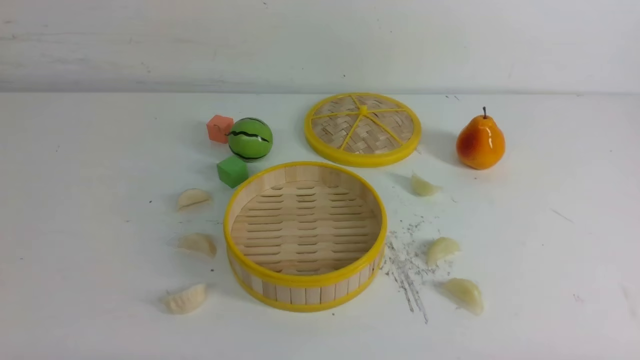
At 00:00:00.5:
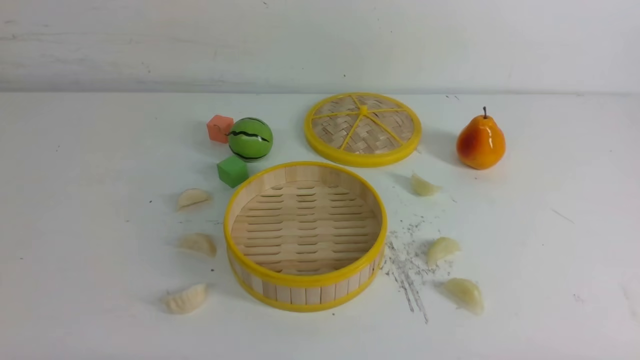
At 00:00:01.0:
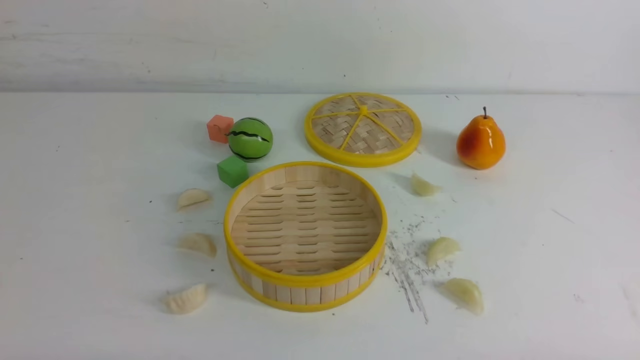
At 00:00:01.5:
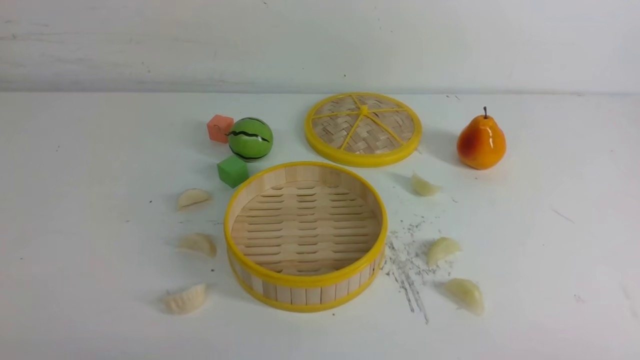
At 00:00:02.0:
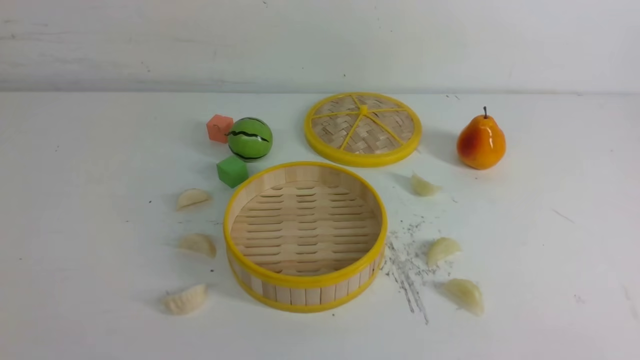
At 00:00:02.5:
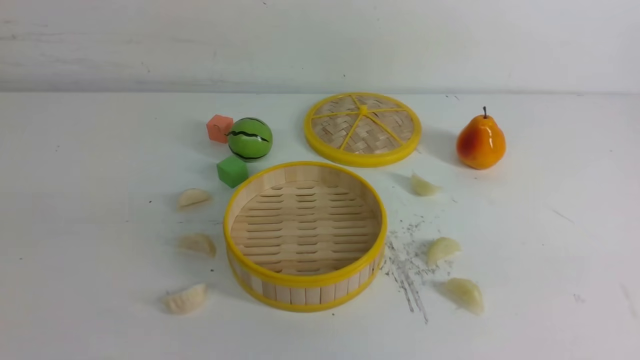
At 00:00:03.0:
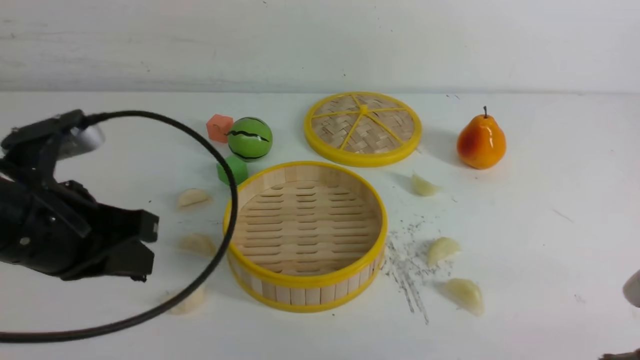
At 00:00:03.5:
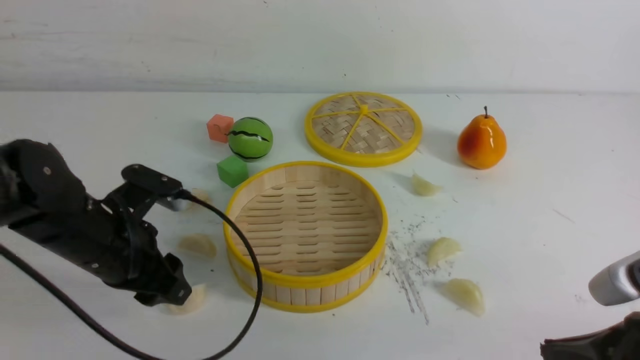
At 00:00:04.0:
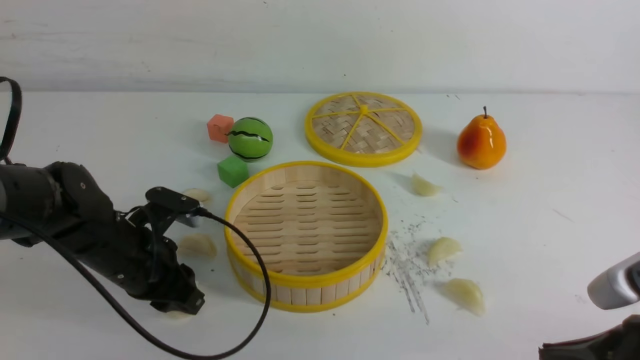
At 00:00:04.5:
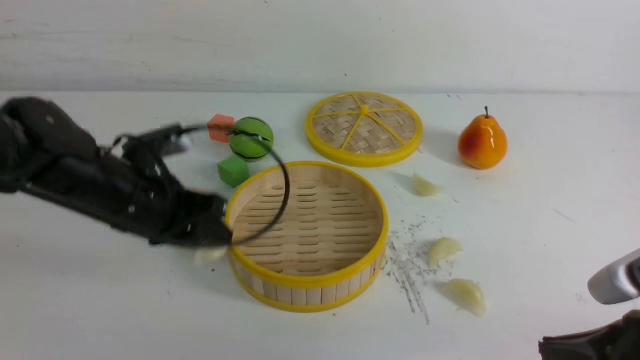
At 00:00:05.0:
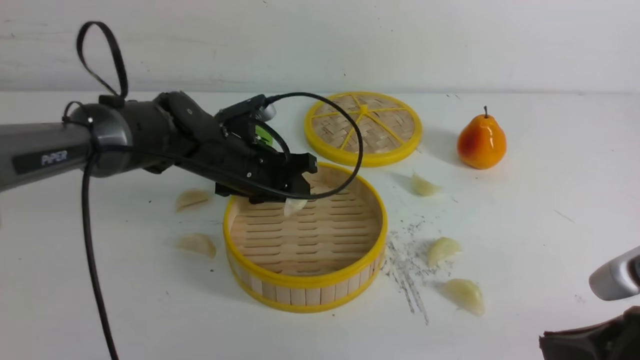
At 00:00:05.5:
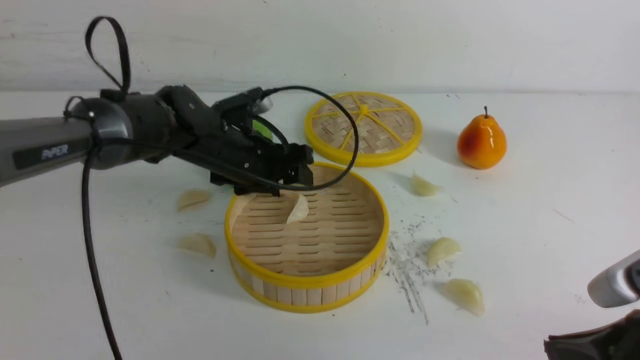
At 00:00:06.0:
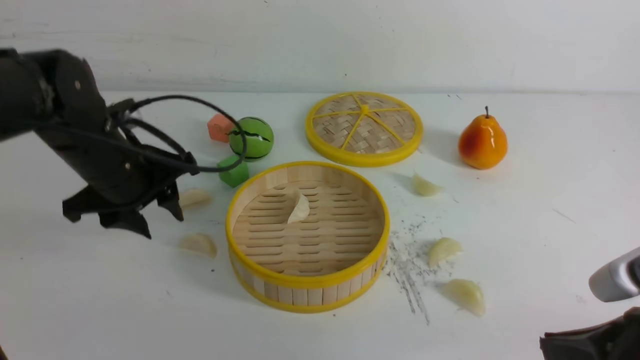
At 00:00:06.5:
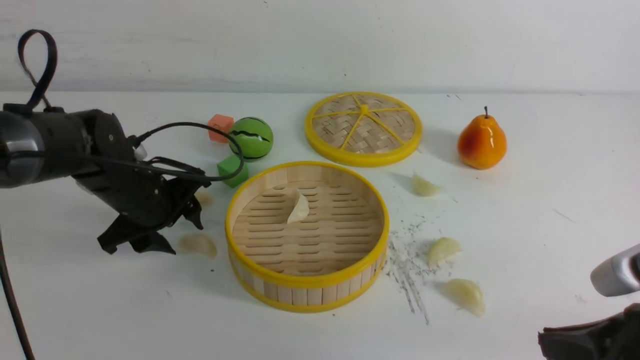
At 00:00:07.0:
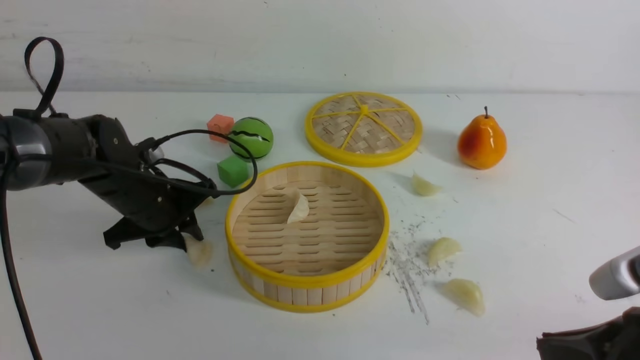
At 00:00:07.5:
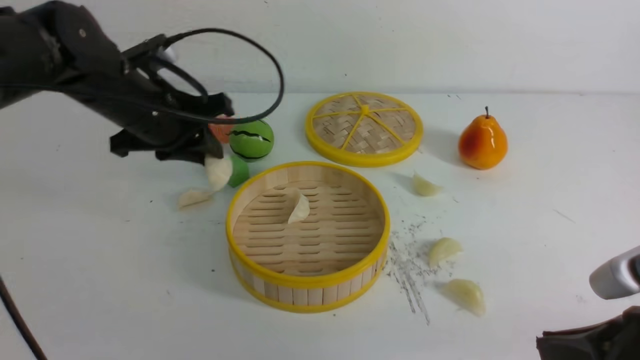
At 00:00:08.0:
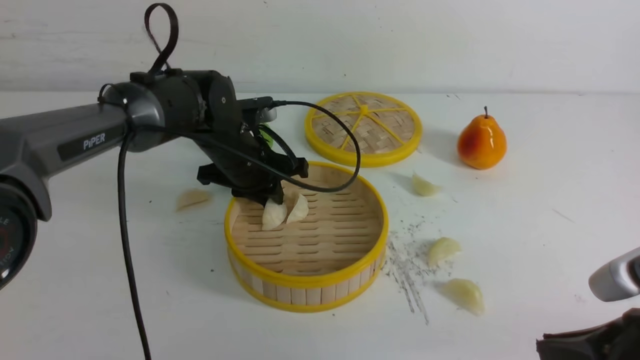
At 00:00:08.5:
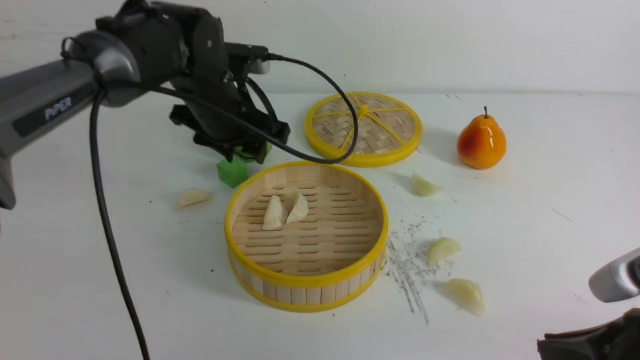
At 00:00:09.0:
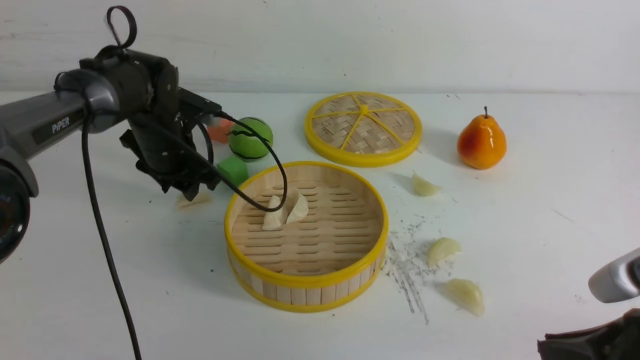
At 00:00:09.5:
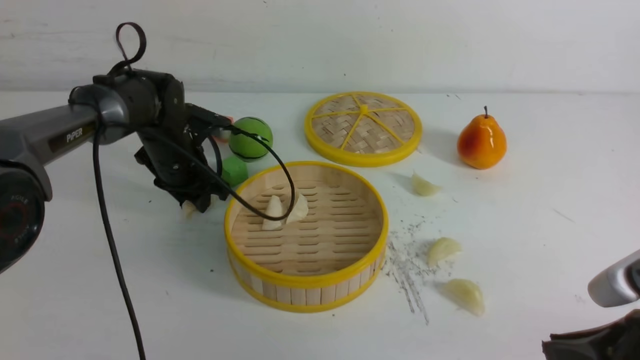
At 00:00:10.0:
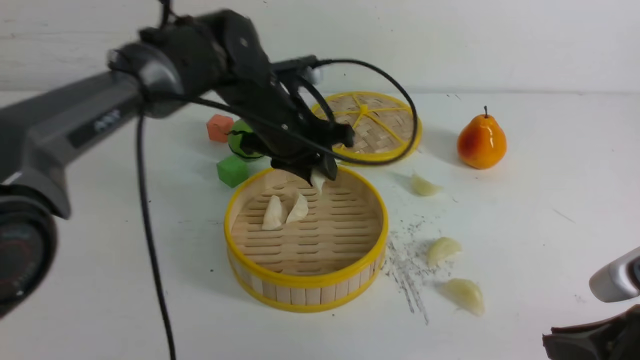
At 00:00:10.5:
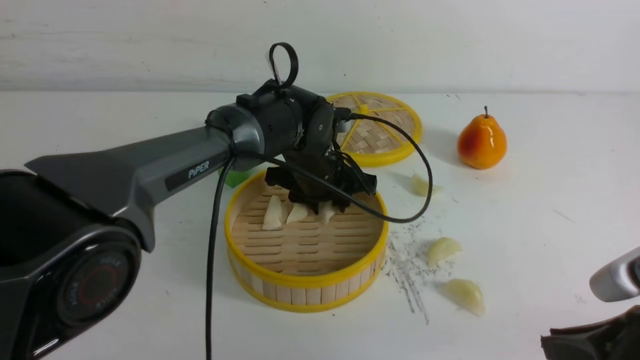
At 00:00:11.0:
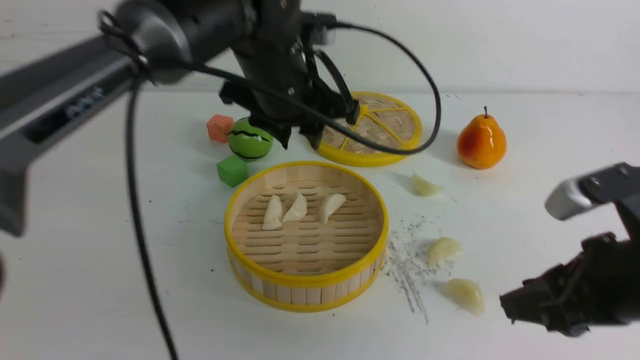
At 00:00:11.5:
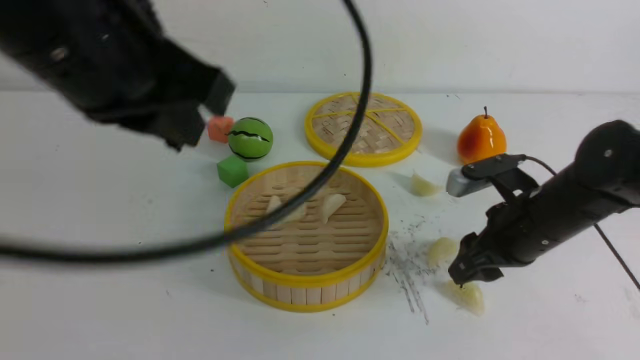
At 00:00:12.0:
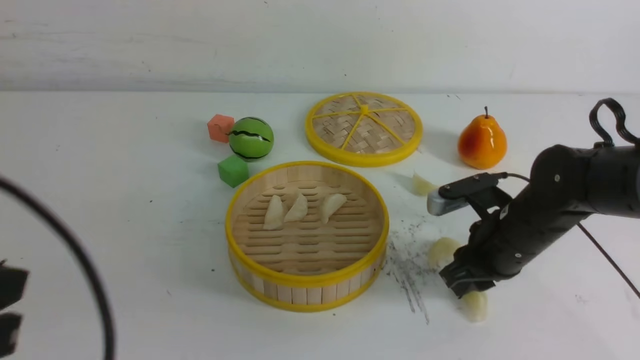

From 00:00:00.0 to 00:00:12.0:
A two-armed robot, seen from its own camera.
Task of the whole recording: put the dumplings into the steamer on the white table.
Step, from 00:00:00.0 to 00:00:04.0: use the left arm to grab a dumpling.
Step, from 00:00:04.5 to 00:00:05.5: use the left arm to put the dumpling into the steamer.
Step, from 00:00:06.0 to 00:00:07.0: use the left arm to grab a dumpling.
Step, from 00:00:07.5 to 00:00:08.0: use the left arm to put the dumpling into the steamer.
Step, from 00:00:08.5 to 00:00:09.5: use the left arm to grab a dumpling.
Step, from 00:00:10.0 to 00:00:10.5: use the left arm to put the dumpling into the steamer.
From 00:00:02.0 to 00:00:04.0: The left gripper heads forward and downward, covering about 30 cm, and closes, then opens again. The right gripper is displaced forward and to the left by some 10 cm, and closes up.
From 00:00:04.0 to 00:00:06.0: The left gripper goes some 10 cm upward and forward, reaches roughly 10 cm to the right, then returns, and opens up.
From 00:00:06.0 to 00:00:08.0: The left gripper goes some 10 cm to the right and forward, and closes its fingers.
From 00:00:08.0 to 00:00:10.0: The left gripper travels to the left and back again, some 10 cm each way.
From 00:00:10.0 to 00:00:12.0: The right gripper heads forward, covering some 20 cm, and opens and closes again; the left gripper goes roughly 40 cm backward and to the left, and closes up.

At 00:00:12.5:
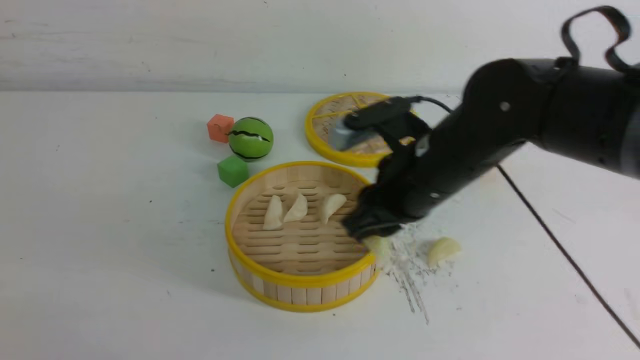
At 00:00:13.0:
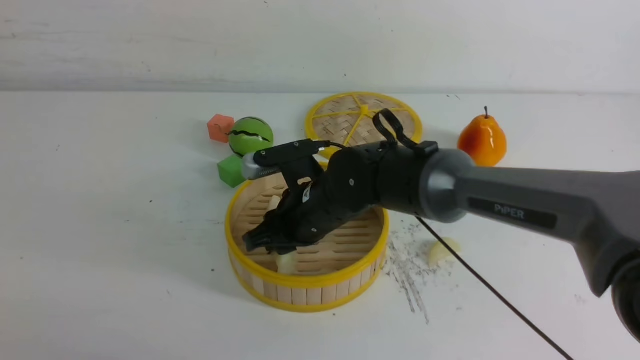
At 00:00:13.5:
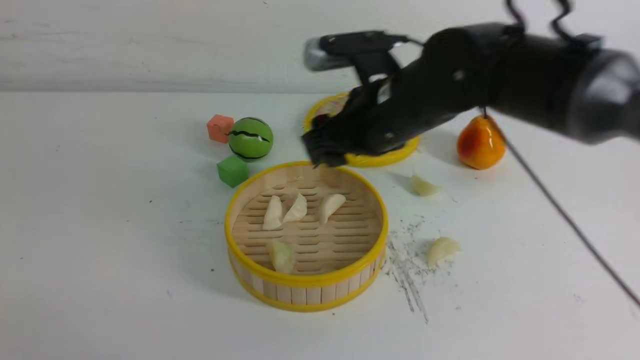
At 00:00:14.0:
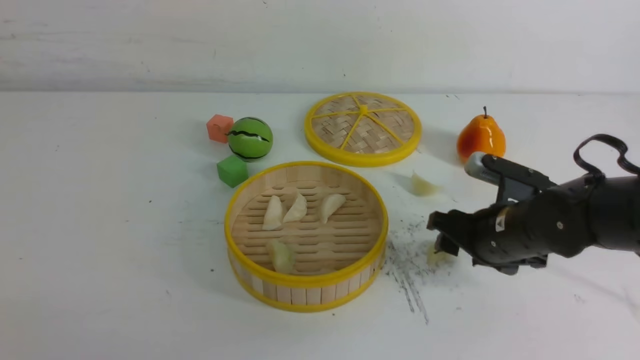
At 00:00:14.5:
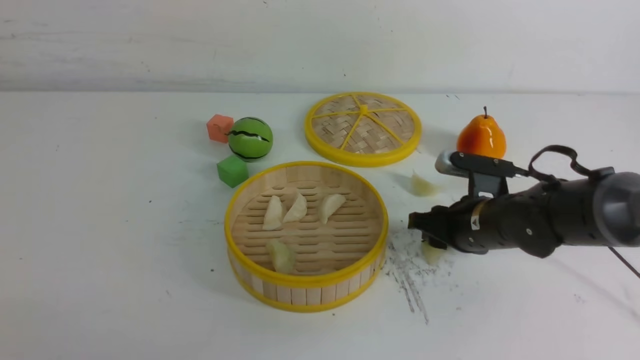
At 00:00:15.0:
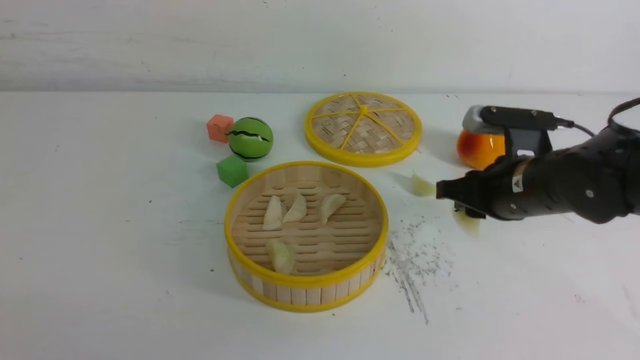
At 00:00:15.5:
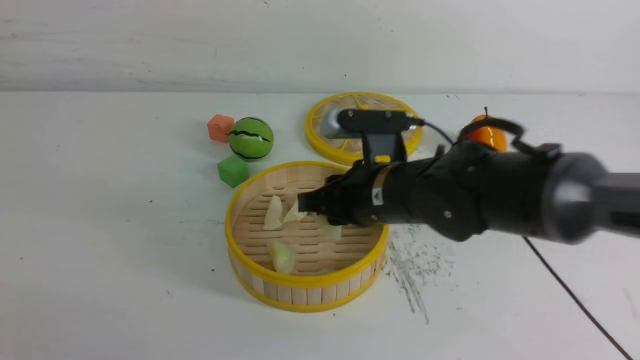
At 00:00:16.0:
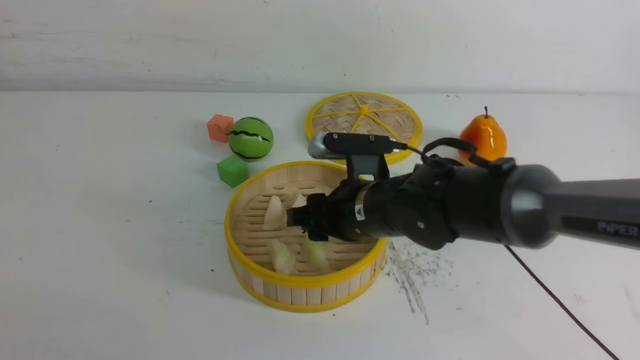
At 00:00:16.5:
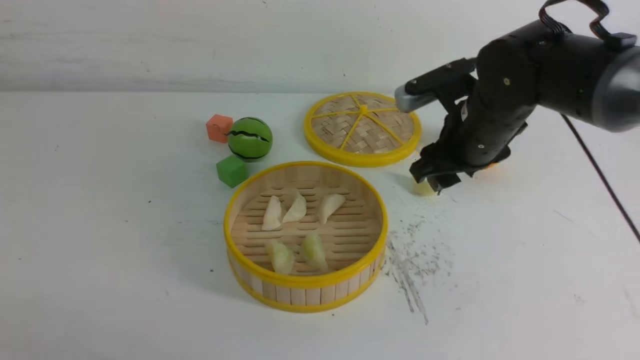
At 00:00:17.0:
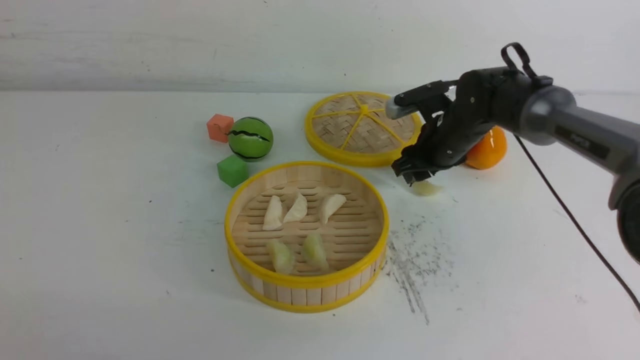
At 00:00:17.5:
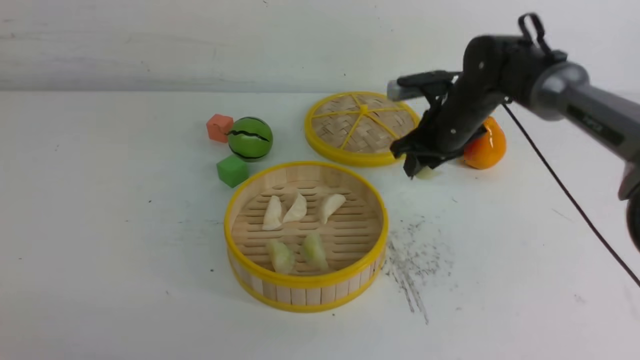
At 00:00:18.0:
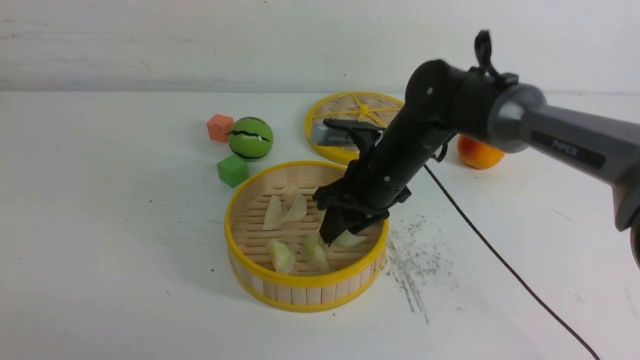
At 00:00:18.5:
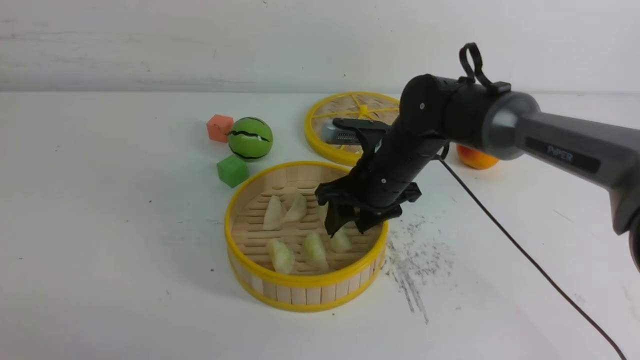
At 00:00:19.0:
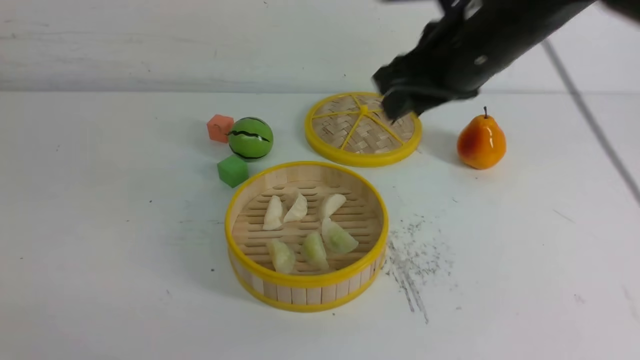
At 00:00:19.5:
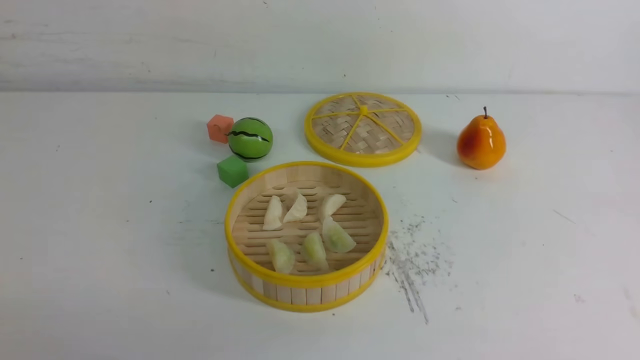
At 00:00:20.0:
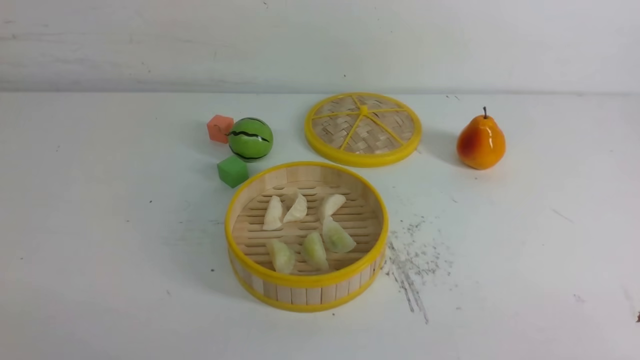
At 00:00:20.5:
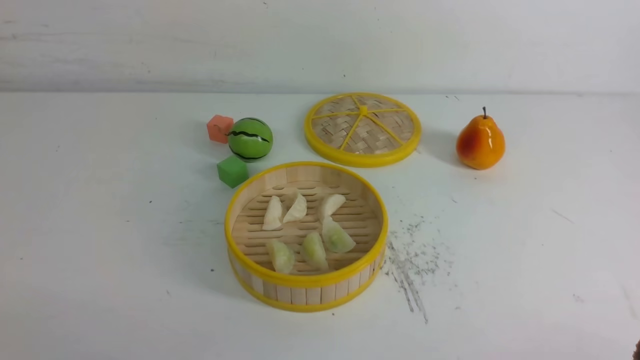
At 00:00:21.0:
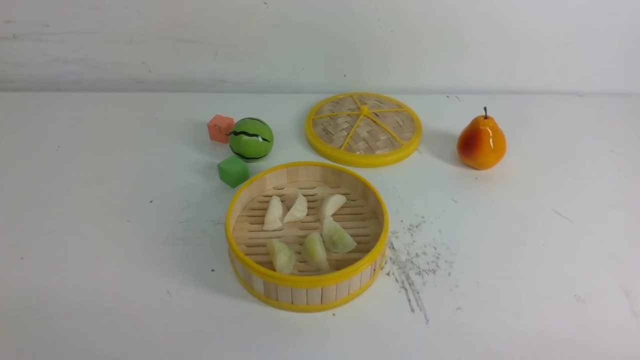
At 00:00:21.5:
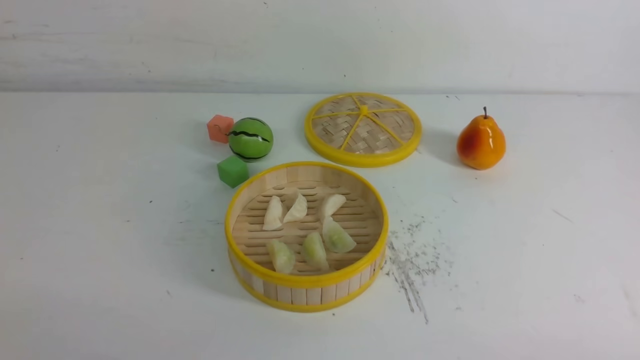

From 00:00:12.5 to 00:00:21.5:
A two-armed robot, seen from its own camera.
Task of the whole recording: put the dumplings into the steamer on the white table.
Step, from 00:00:12.5 to 00:00:13.0: use the right arm to put the dumpling into the steamer.
Step, from 00:00:13.5 to 00:00:14.5: use the right arm to grab a dumpling.
Step, from 00:00:15.0 to 00:00:16.0: use the right arm to put the dumpling into the steamer.
Step, from 00:00:16.5 to 00:00:17.0: use the right arm to grab a dumpling.
Step, from 00:00:17.5 to 00:00:18.5: use the right arm to put the dumpling into the steamer.
From 00:00:12.5 to 00:00:14.5: The right gripper moves downward and to the right, some 15 cm.
From 00:00:14.5 to 00:00:17.0: The right gripper goes about 15 cm forward.
From 00:00:17.0 to 00:00:19.5: The right gripper shifts approximately 40 cm backward and upward, and closes its fingers.
